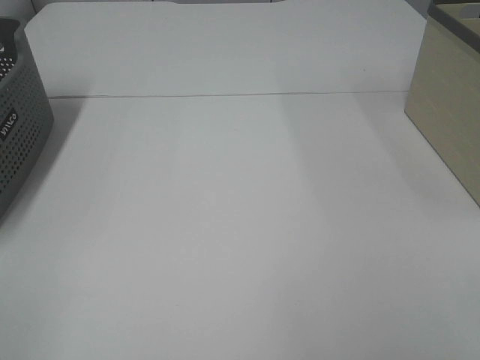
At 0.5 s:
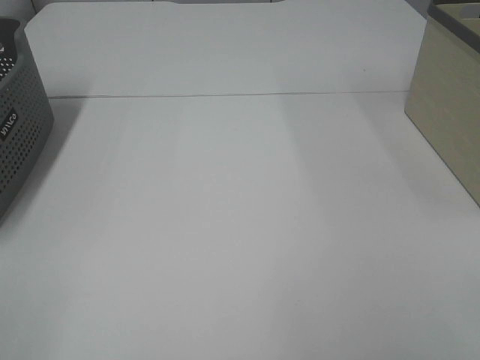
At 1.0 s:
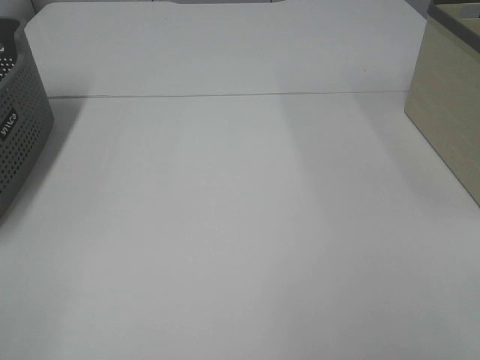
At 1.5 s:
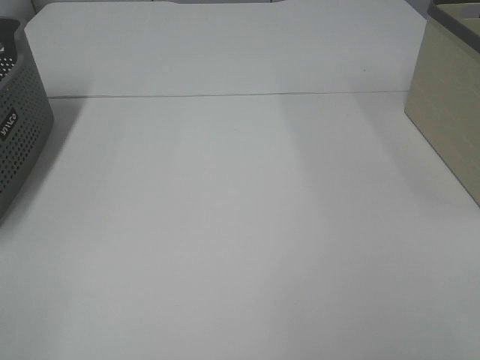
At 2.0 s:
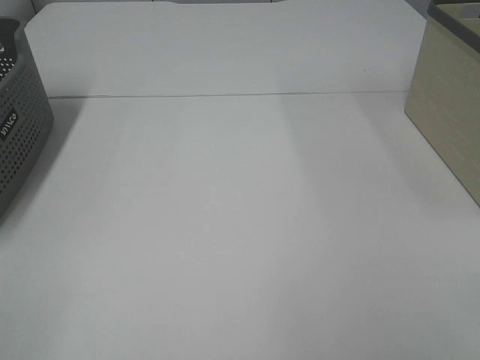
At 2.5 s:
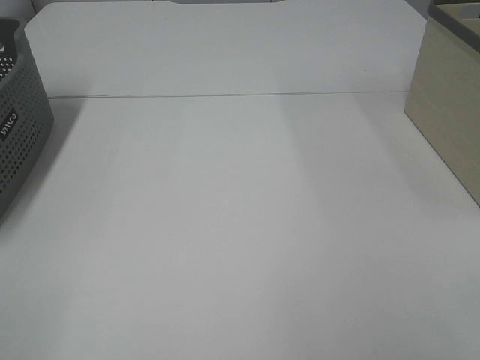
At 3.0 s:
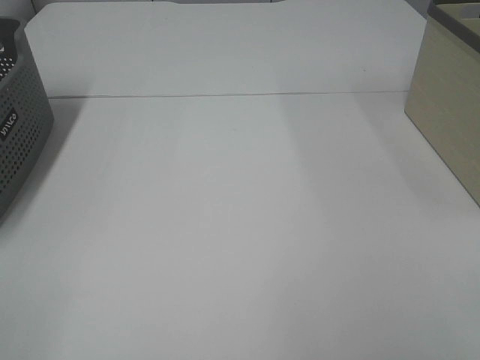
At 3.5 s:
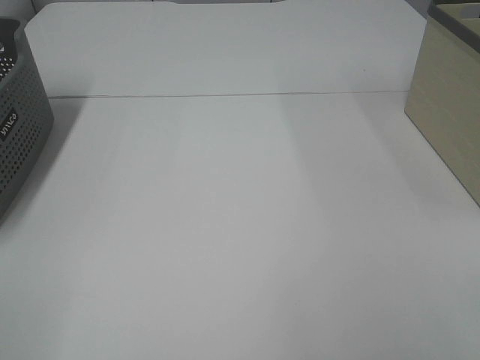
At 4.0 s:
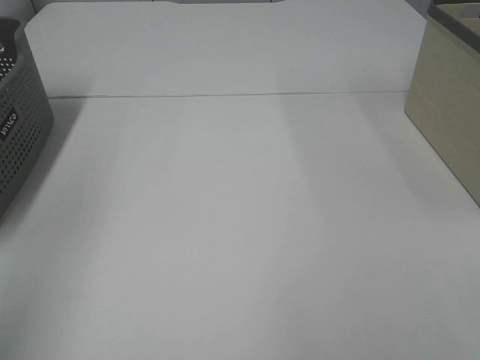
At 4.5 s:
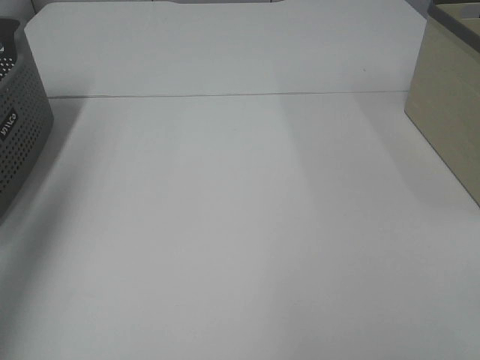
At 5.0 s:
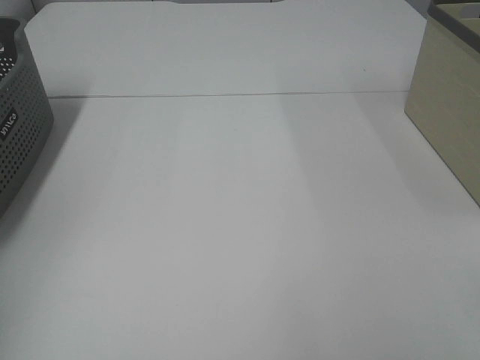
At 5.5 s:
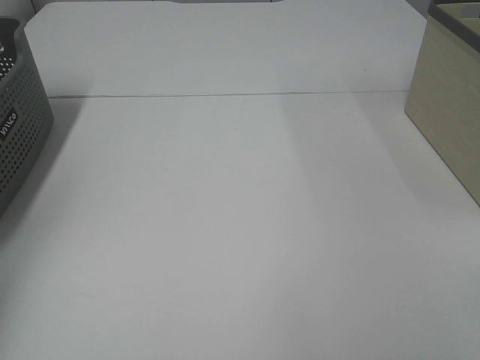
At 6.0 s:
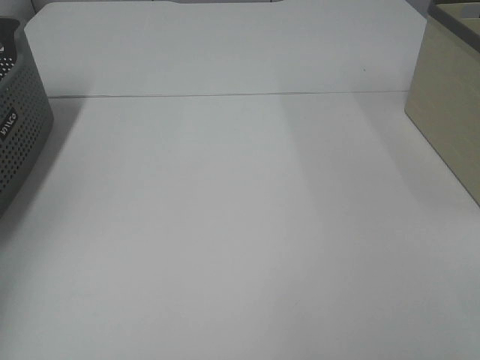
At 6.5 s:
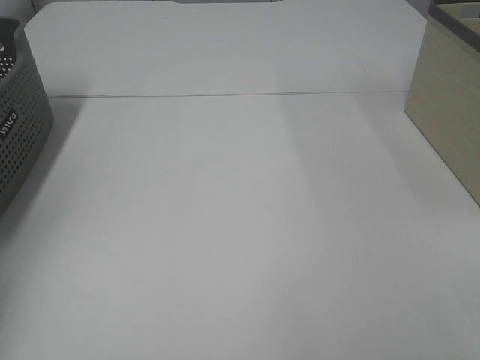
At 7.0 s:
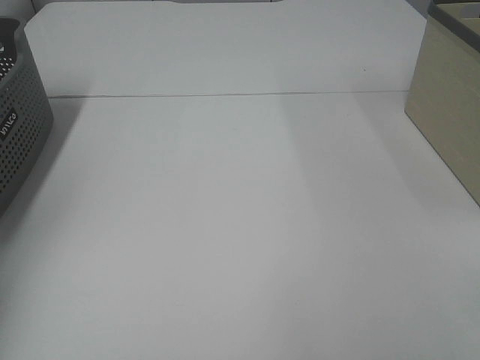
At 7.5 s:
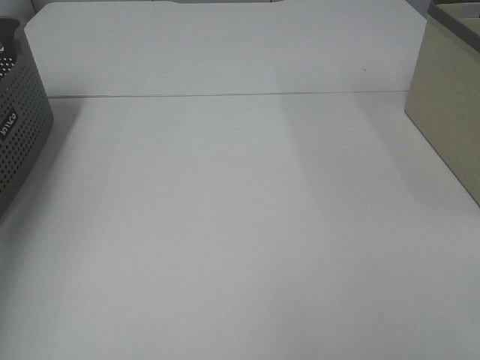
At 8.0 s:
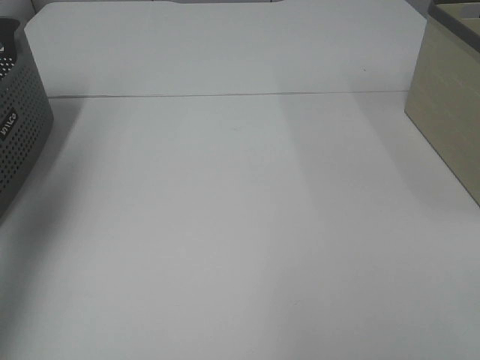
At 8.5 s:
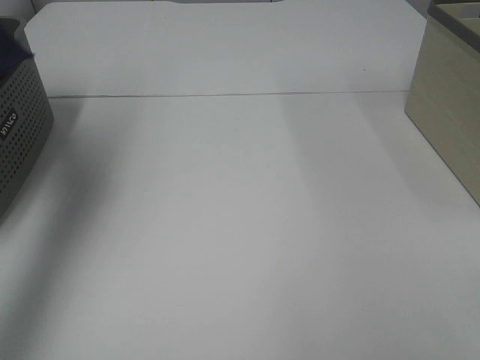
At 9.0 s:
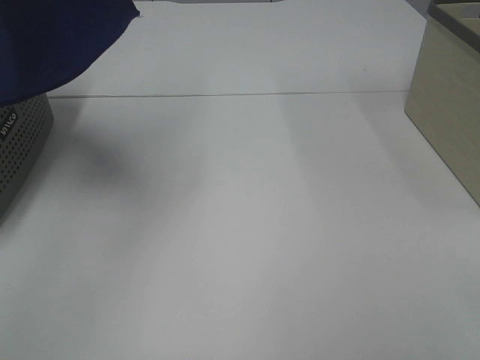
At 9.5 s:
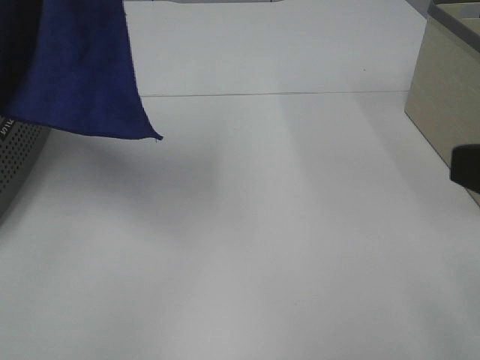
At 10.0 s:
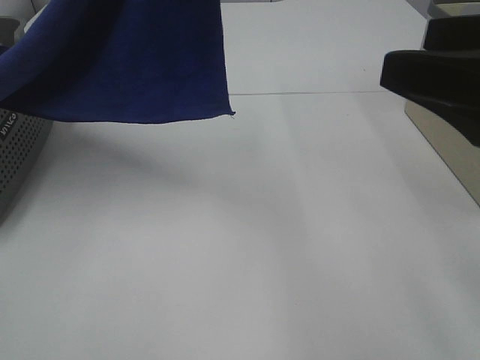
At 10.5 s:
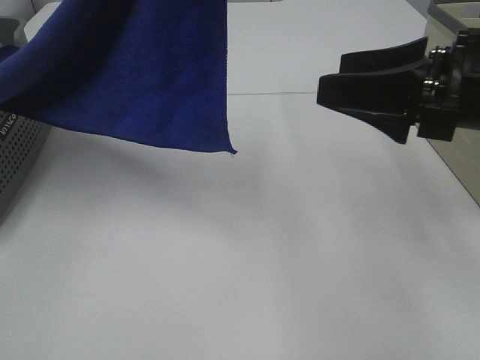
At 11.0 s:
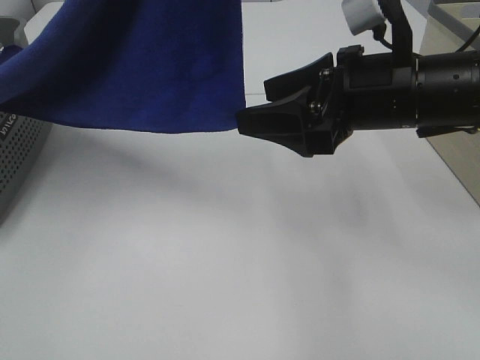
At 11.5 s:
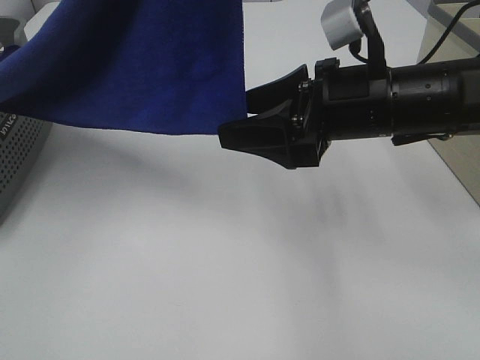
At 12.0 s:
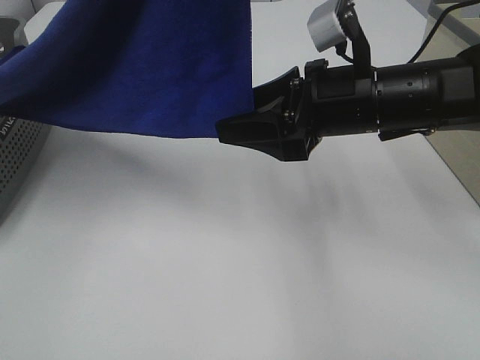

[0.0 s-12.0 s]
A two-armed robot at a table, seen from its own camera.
Task of the whole recording: Remove the towel and place it.
0.0 to 2.0 s: Neither gripper changes place.
4.0 to 6.0 s: The left gripper shifts roughly 40 cm forward and downward, and closes its fingers.
6.0 to 8.0 s: The left gripper heads upward and backward, covering some 25 cm, and closes its fingers.
8.0 to 10.0 s: The left gripper shifts roughly 25 cm to the right, while the right gripper shifts about 15 cm forward.
10.0 to 12.0 s: The right gripper travels forward, to the left and downward by some 20 cm.

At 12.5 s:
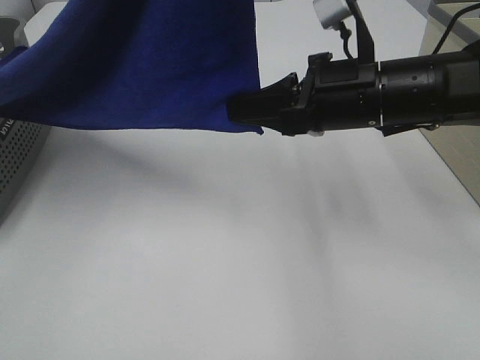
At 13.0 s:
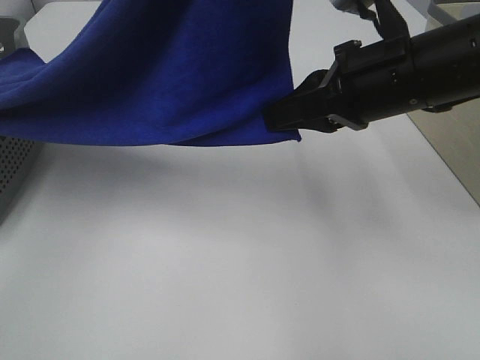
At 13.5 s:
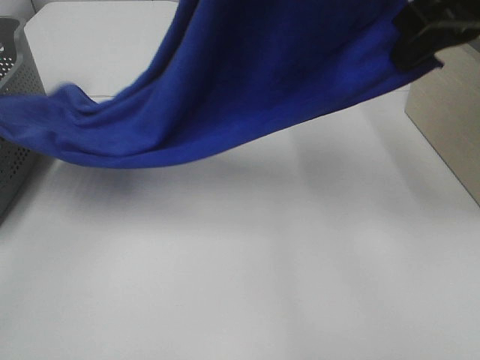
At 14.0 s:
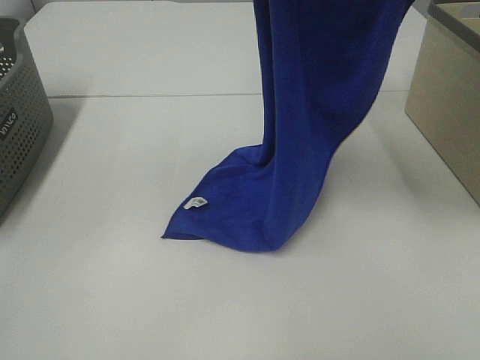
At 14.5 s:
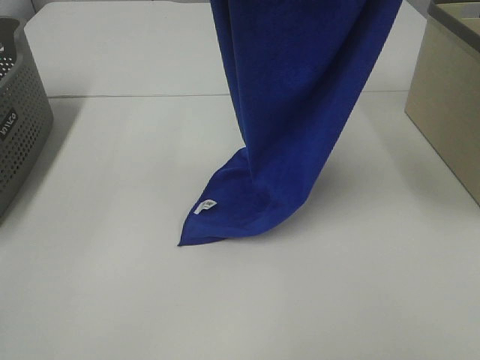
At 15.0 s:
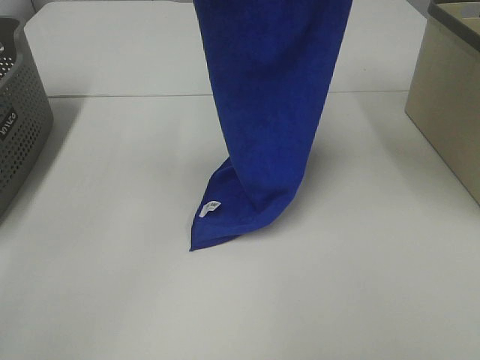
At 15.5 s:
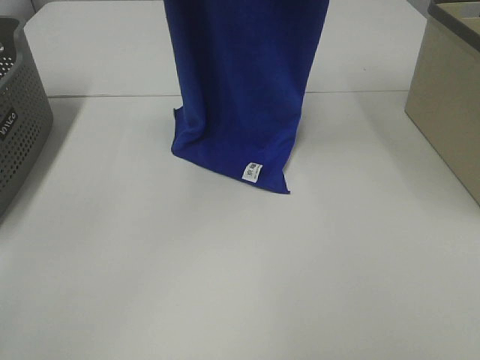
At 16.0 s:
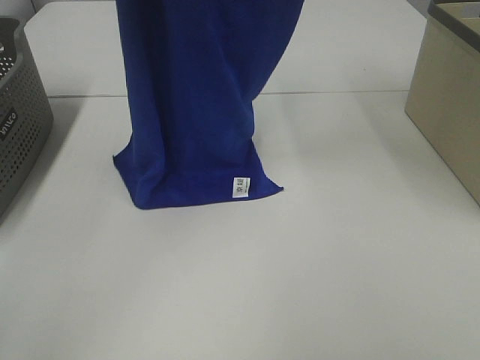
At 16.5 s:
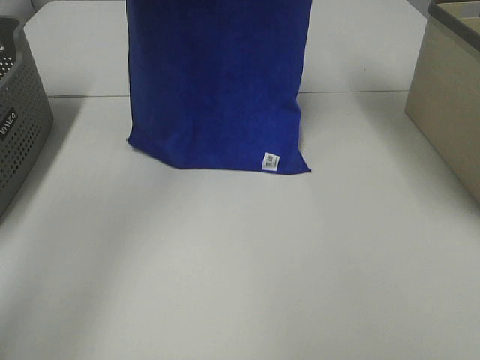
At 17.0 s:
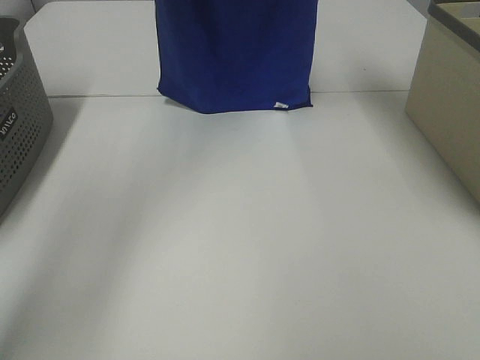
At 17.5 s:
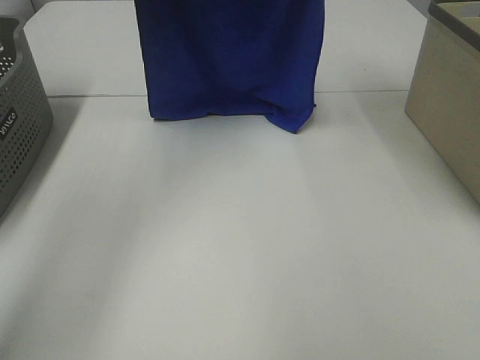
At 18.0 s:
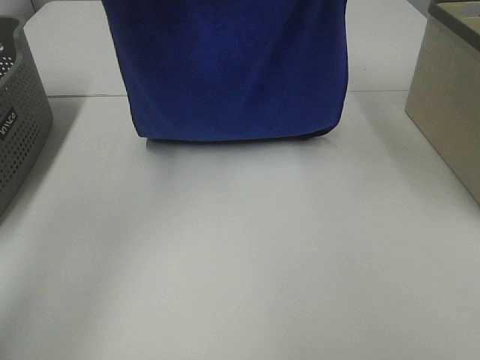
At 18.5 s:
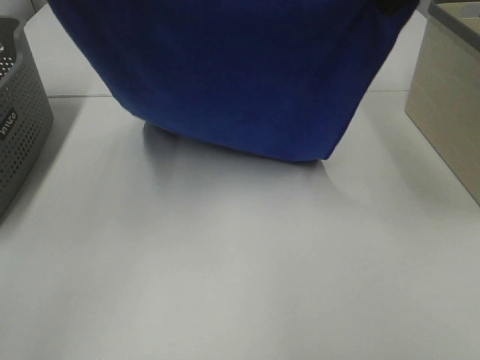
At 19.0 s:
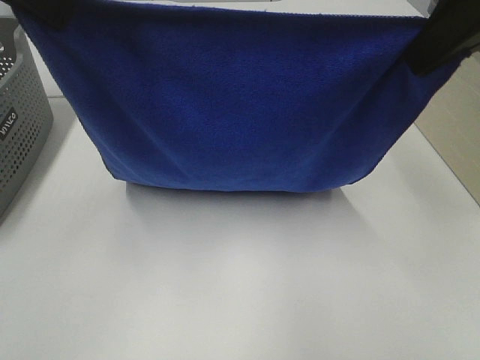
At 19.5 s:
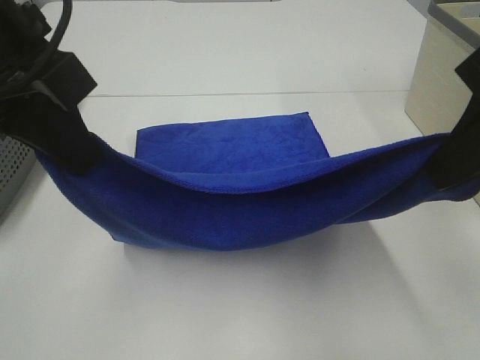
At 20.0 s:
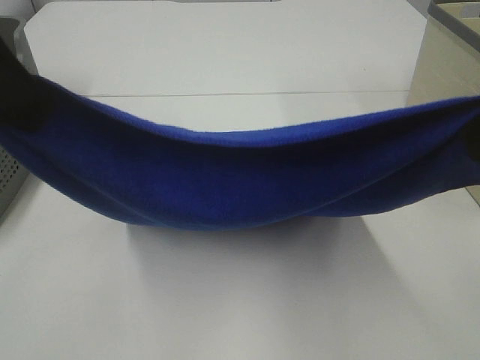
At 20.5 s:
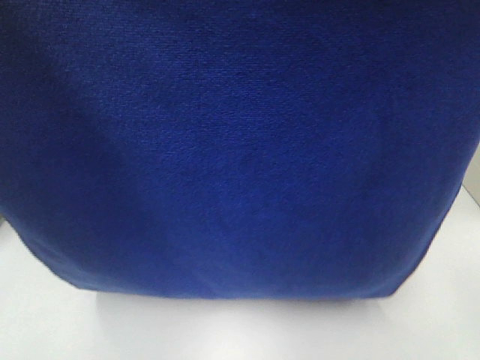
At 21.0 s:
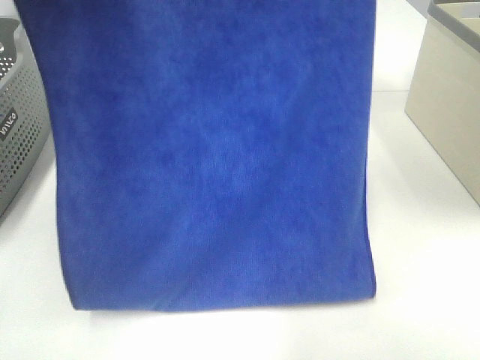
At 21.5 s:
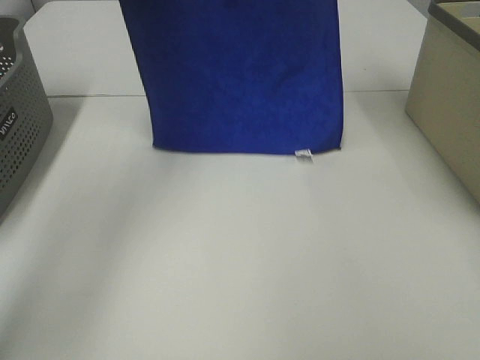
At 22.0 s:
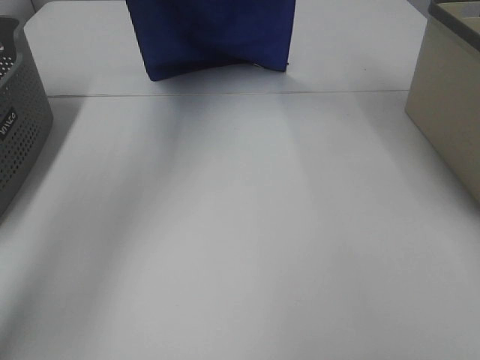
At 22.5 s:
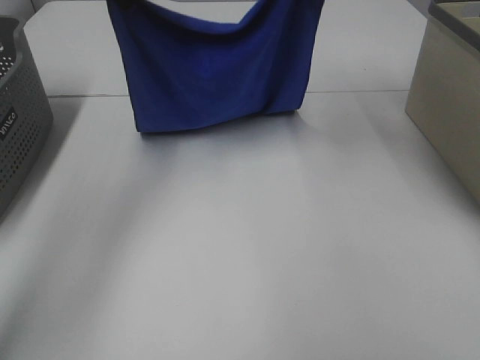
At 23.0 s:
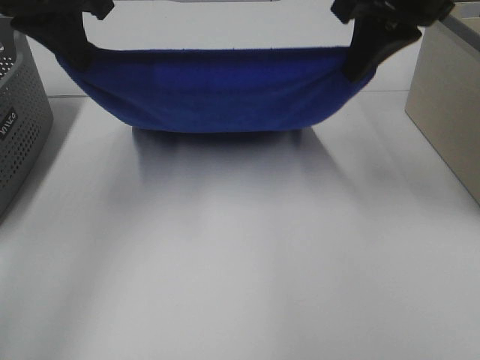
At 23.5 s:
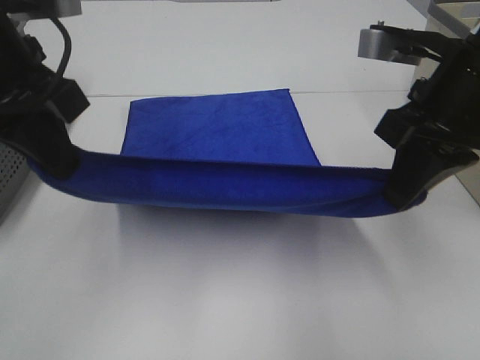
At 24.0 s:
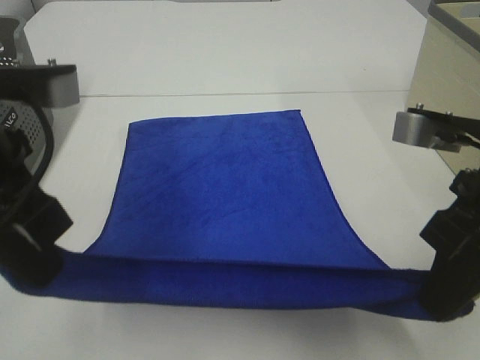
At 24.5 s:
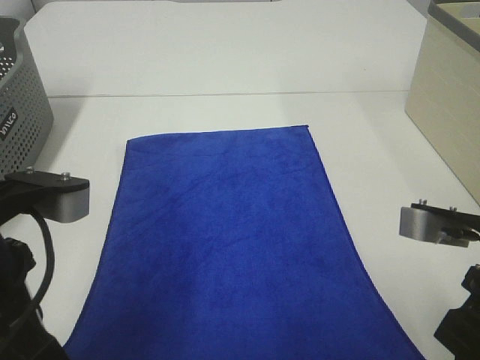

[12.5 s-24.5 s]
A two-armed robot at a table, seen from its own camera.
Task of the whole recording: Remove the towel and place it.
Step, 14.0 to 22.0 s: Left hand: spread the blue towel flat on the table.
Step, 14.0 to 22.0 s: Right hand: spread the blue towel flat on the table.
12.5 to 14.5 s: The right gripper is displaced upward by about 25 cm. The left gripper travels forward by approximately 5 cm.
14.5 to 16.5 s: The right gripper is displaced forward by some 15 cm, while the left gripper goes approximately 15 cm forward and to the left.
16.5 to 18.5 s: Both grippers travel together backward, some 15 cm.
18.5 to 20.5 s: The grippers both shift backward by about 20 cm.
20.5 to 22.5 s: The right gripper travels forward by approximately 30 cm. The left gripper shifts about 35 cm forward and downward.
22.5 to 24.5 s: The right gripper moves backward and downward, roughly 35 cm. The left gripper goes some 30 cm backward.

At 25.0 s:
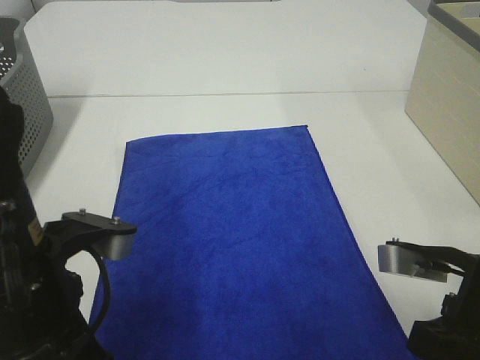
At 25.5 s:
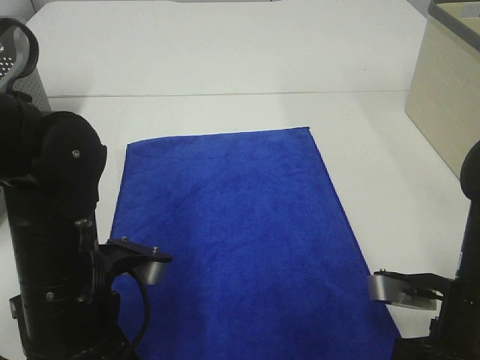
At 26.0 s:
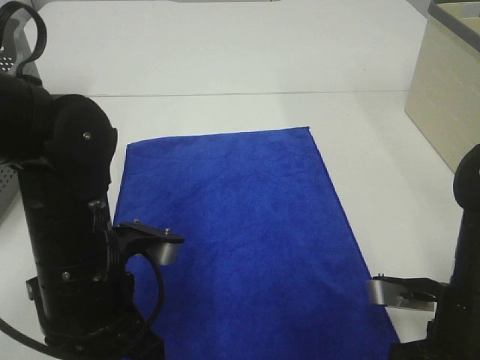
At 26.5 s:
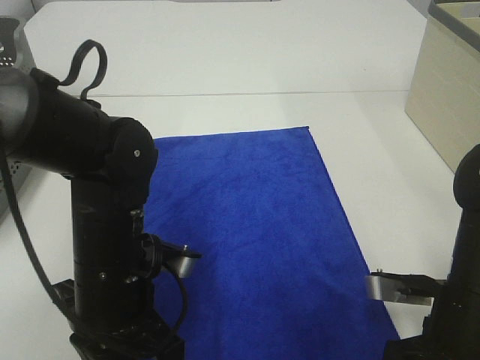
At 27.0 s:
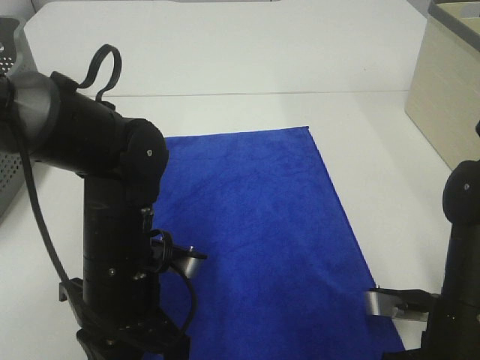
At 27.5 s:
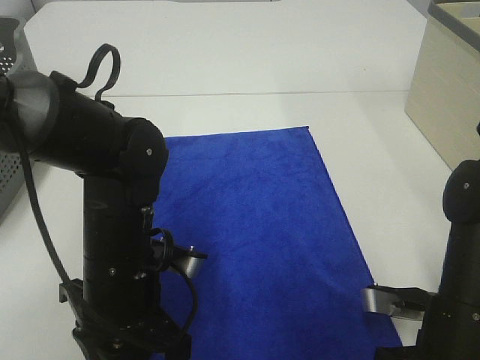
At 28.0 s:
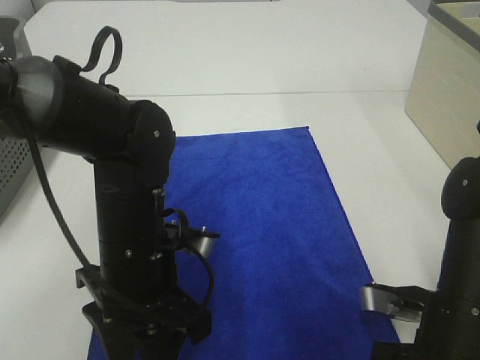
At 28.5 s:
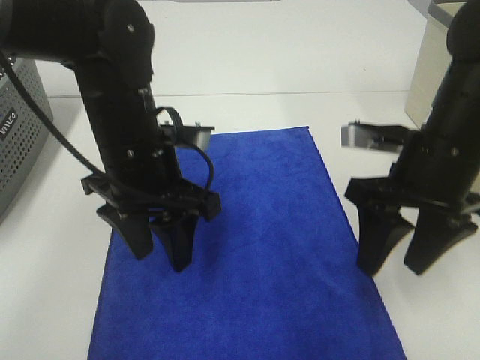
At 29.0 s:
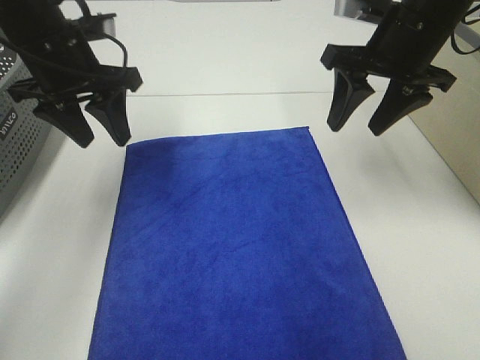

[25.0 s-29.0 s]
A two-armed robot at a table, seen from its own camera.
Task of the whole recording: Remove the towel and place it.
25.0 to 27.0 s: The left gripper travels downward and forward by roughly 10 cm, while the right gripper moves downward, roughly 5 cm.
27.0 to 29.0 s: The right gripper is displaced forward and upward by roughly 25 cm, and opens up. The left gripper travels forward, upward and to the left by some 25 cm, and opens its fingers.
